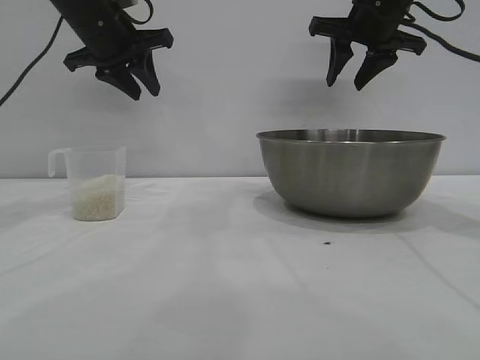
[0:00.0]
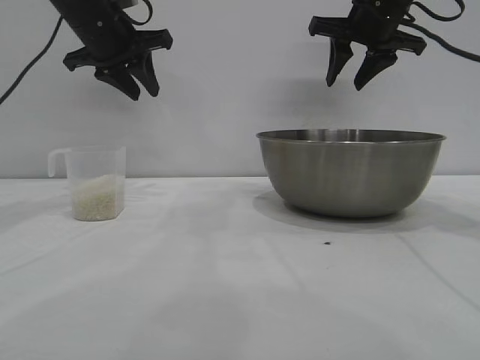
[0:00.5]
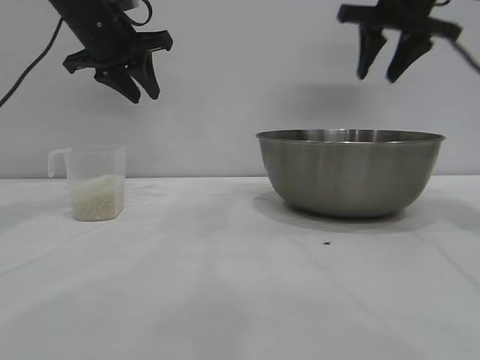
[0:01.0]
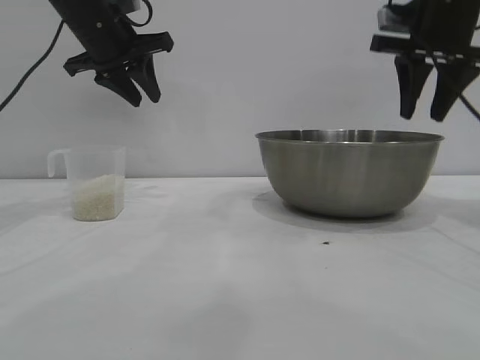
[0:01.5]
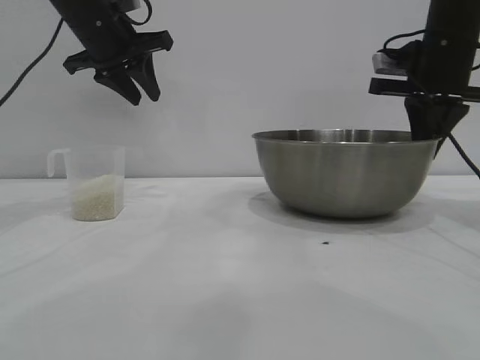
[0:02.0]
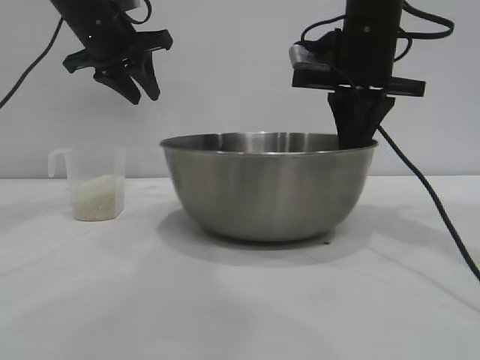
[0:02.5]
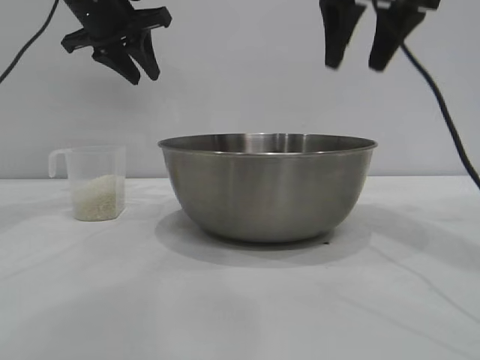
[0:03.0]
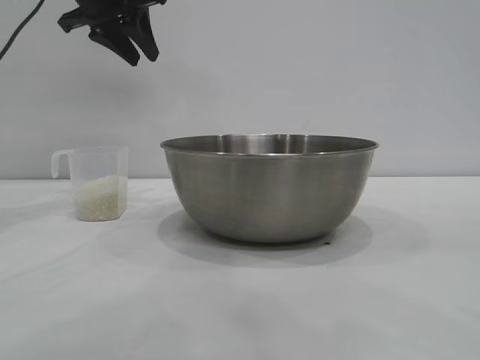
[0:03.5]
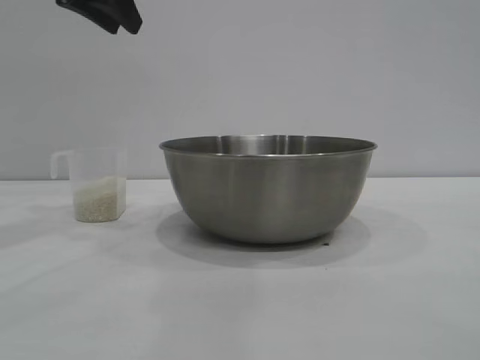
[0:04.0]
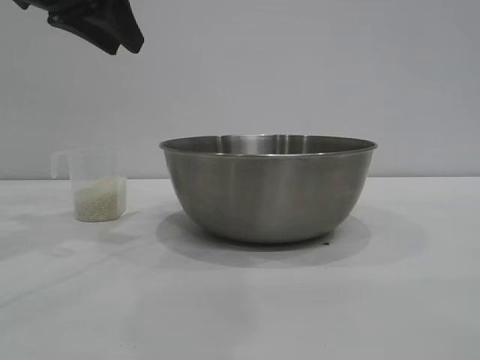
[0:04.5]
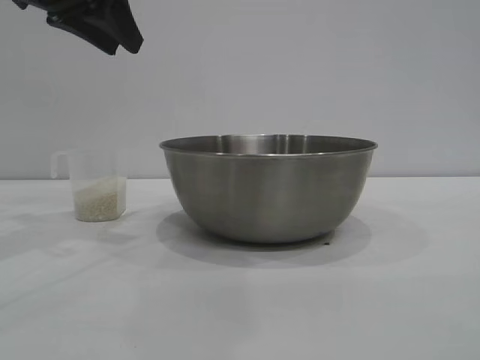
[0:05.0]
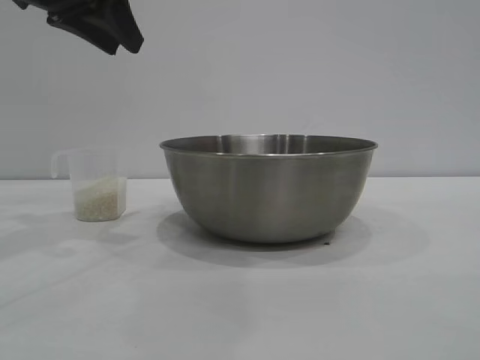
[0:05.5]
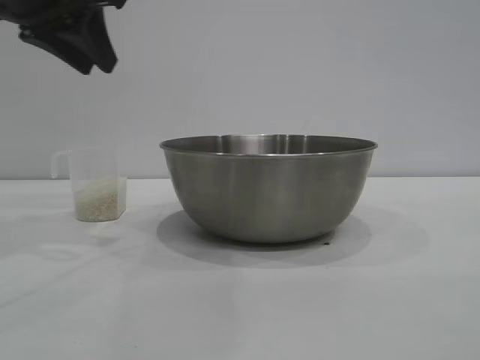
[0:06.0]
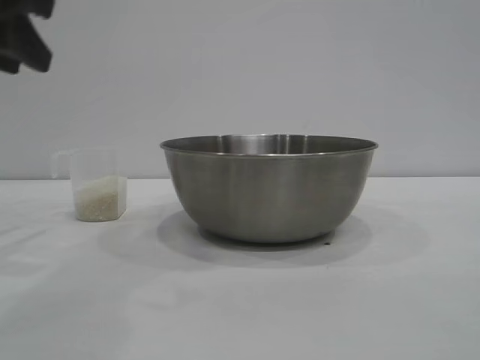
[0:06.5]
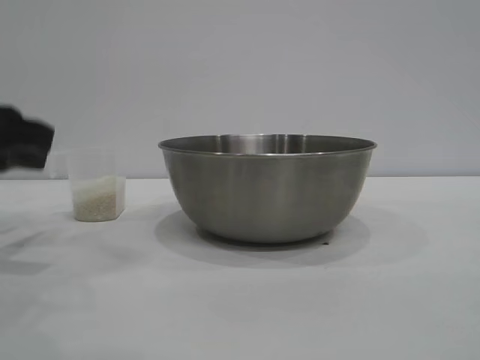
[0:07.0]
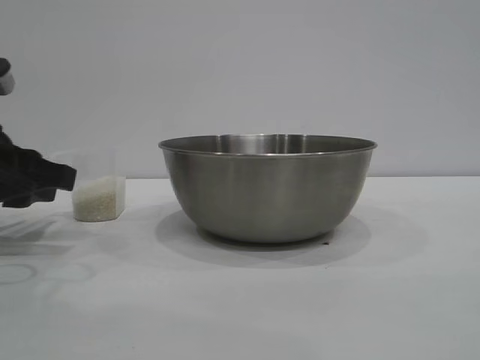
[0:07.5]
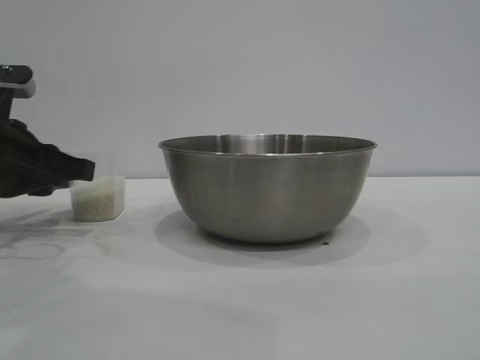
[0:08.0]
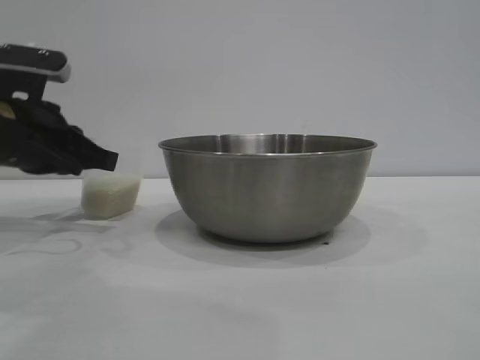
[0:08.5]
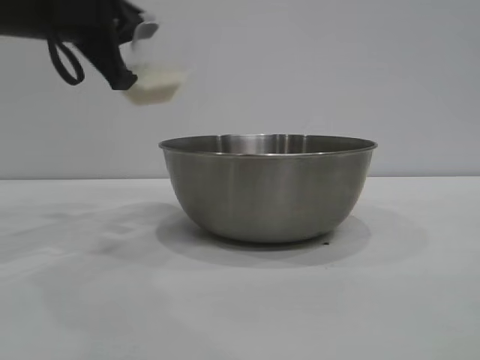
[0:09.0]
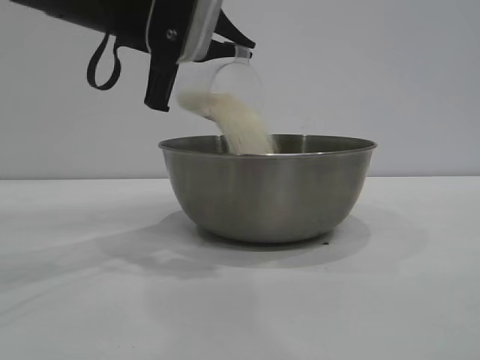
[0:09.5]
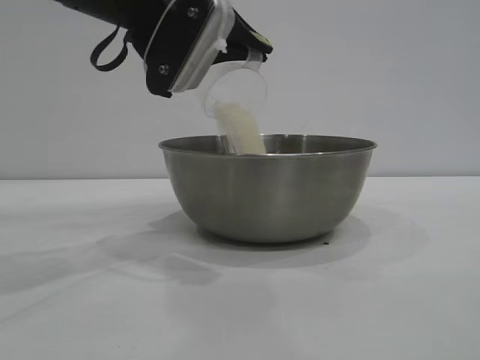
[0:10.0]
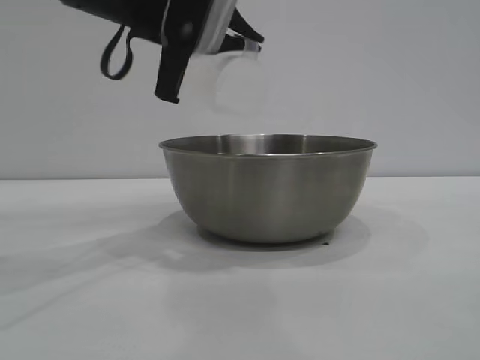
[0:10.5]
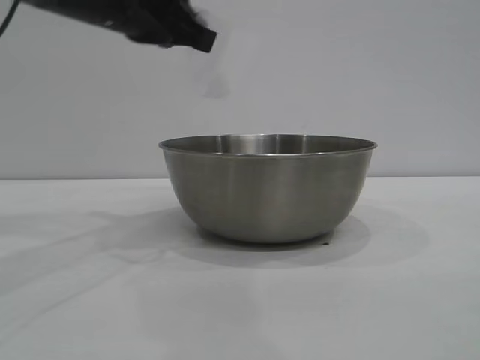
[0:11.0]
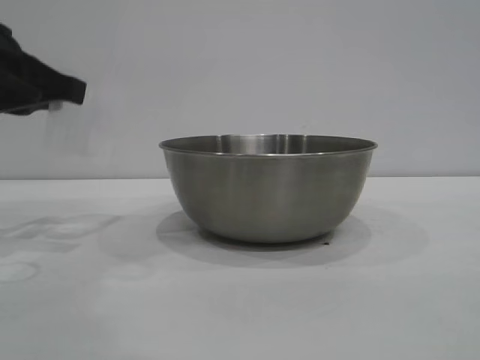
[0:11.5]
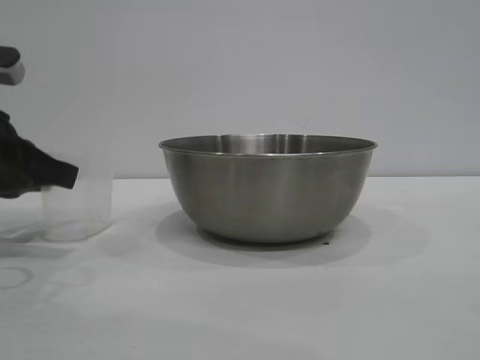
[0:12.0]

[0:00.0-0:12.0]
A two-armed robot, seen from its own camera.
Task of the whole recording: the right gripper grasp the rice container and place it in the center of the table, the left gripper grasp the rice scoop and pour the rice into the rice container.
Step, 0:00.0 to 0:02.5: Move the bowl to the center of view with the right gripper.
Step, 0:03.0 to 0:08.5: Pick up the cup with rice in it with the left gripper.
Step, 0:09.0 to 0:10.0: Pour the rice from the cup into the bowl with the left gripper.
